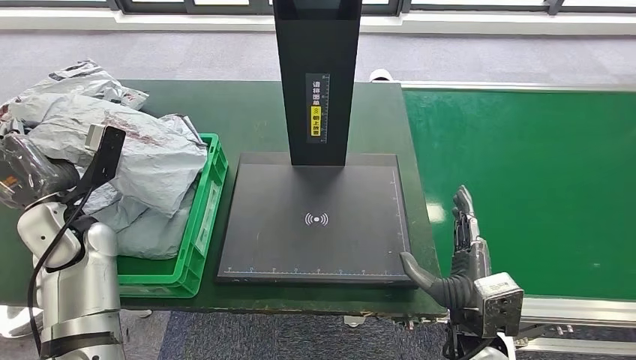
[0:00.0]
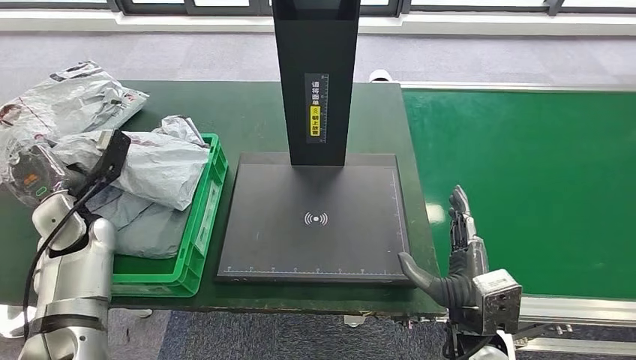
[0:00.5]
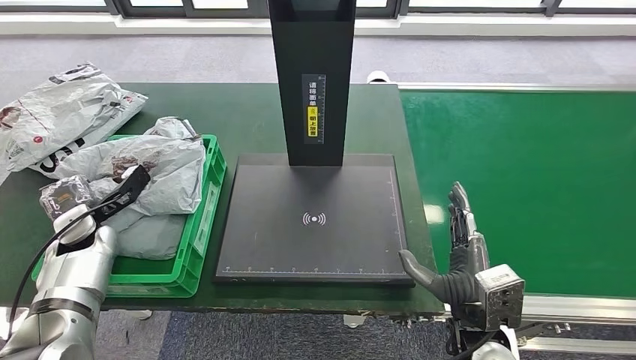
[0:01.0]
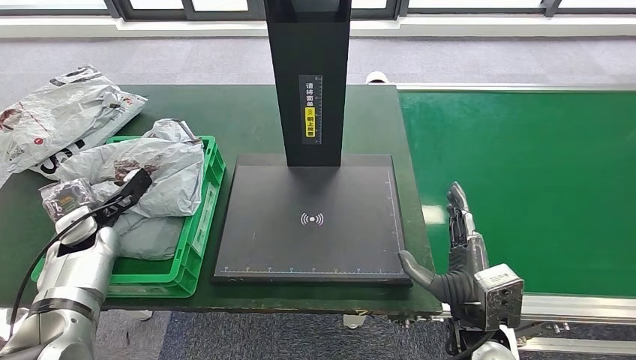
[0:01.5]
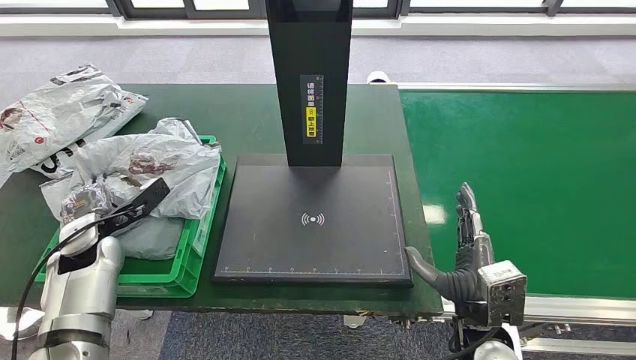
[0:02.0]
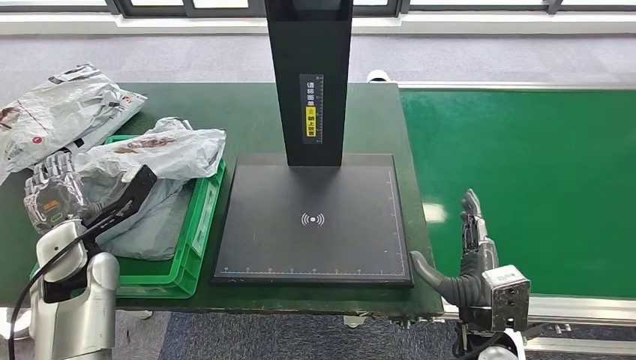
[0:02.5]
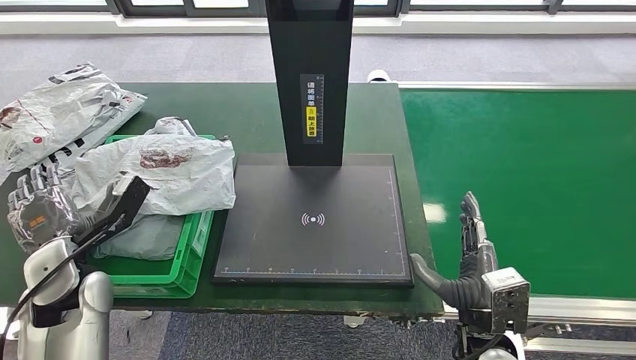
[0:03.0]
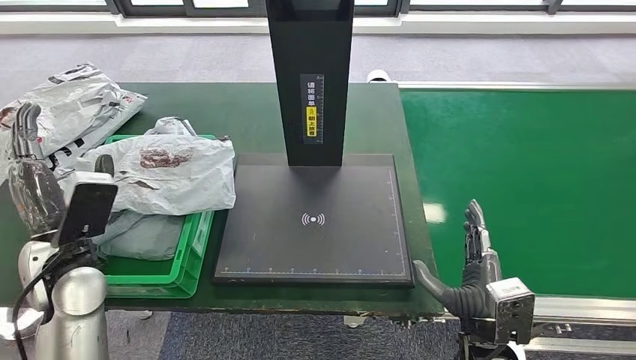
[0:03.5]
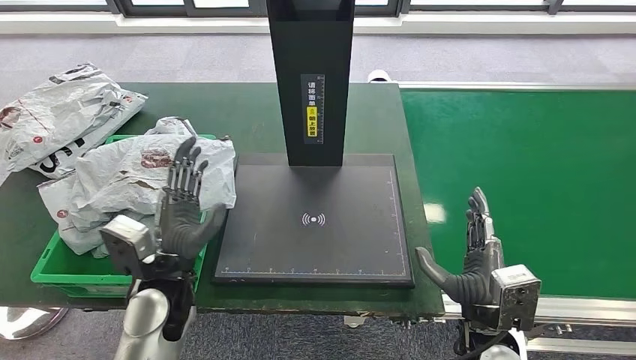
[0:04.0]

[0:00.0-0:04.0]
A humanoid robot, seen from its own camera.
Step, 0:00.0 to 0:04.0: Place the parcel into the delivery box.
